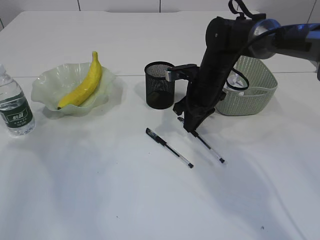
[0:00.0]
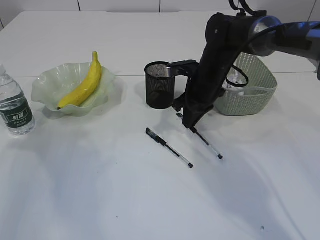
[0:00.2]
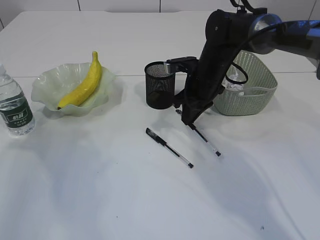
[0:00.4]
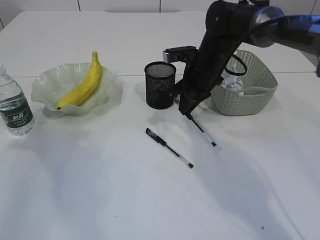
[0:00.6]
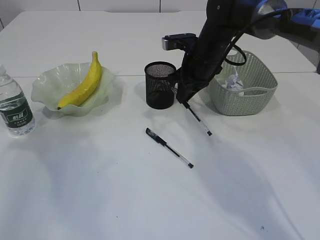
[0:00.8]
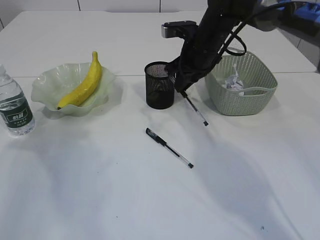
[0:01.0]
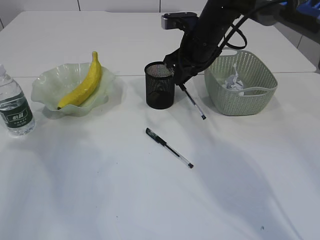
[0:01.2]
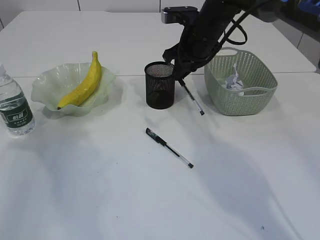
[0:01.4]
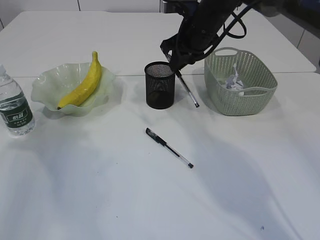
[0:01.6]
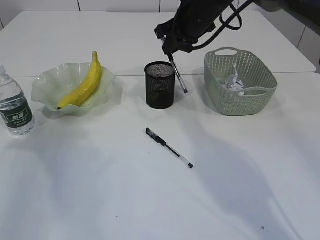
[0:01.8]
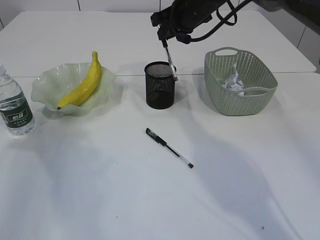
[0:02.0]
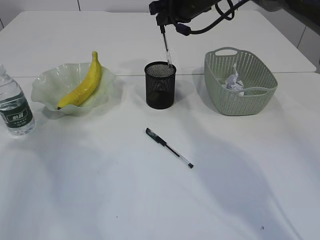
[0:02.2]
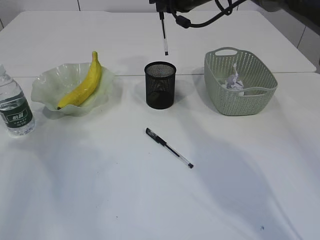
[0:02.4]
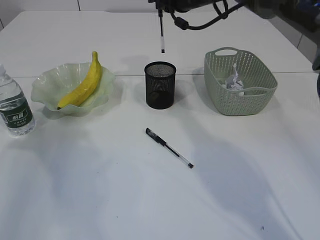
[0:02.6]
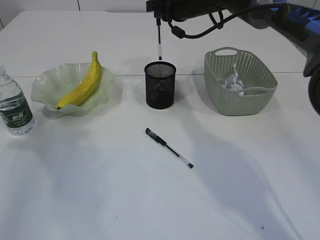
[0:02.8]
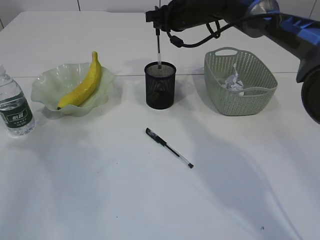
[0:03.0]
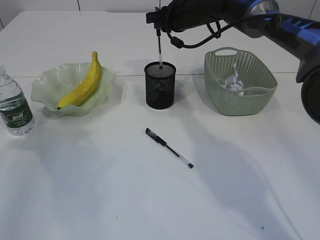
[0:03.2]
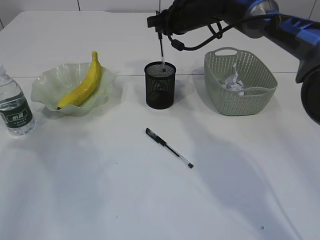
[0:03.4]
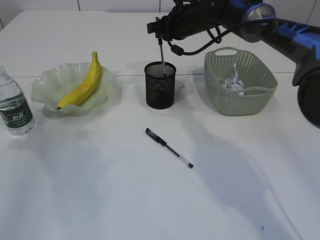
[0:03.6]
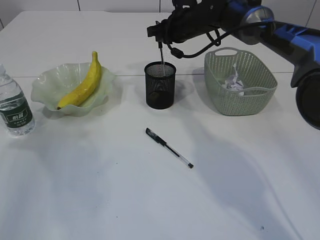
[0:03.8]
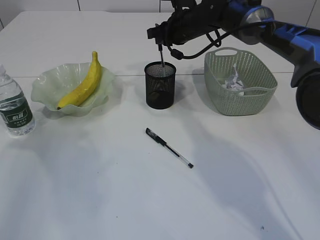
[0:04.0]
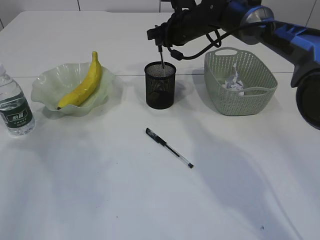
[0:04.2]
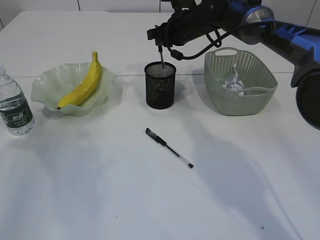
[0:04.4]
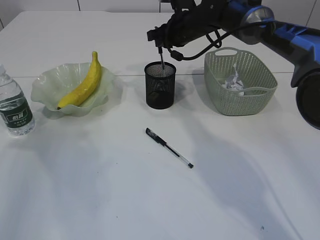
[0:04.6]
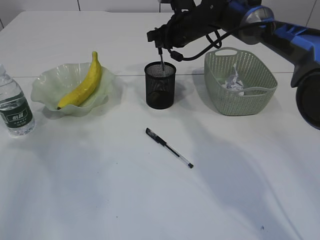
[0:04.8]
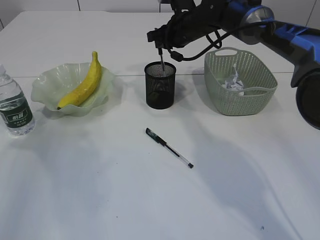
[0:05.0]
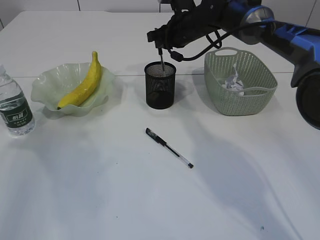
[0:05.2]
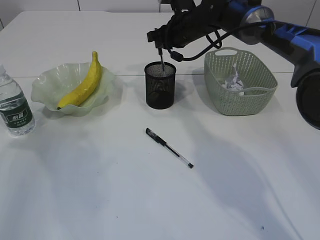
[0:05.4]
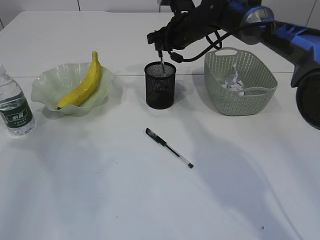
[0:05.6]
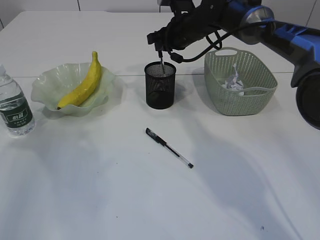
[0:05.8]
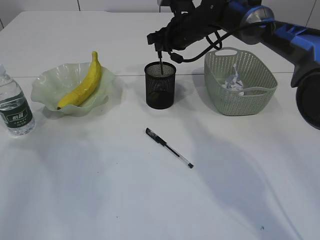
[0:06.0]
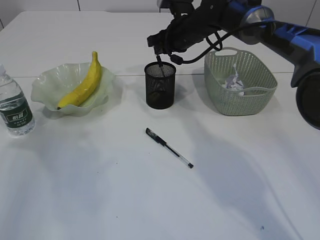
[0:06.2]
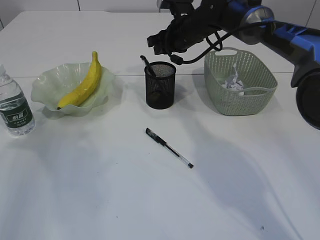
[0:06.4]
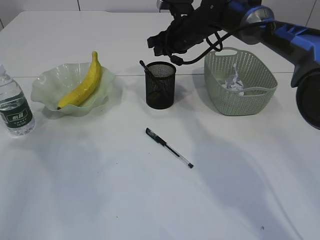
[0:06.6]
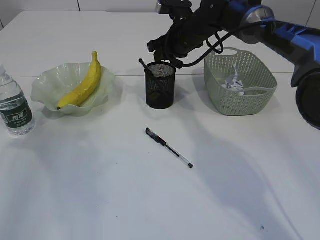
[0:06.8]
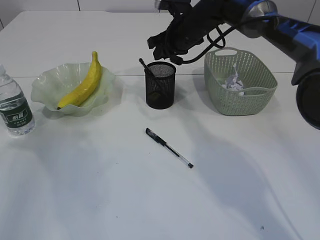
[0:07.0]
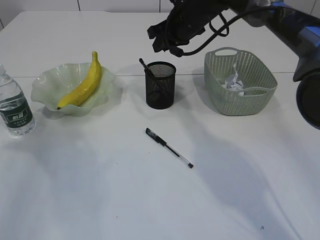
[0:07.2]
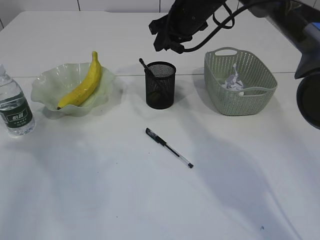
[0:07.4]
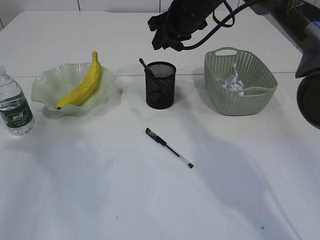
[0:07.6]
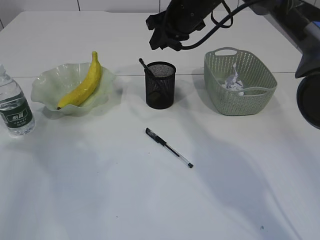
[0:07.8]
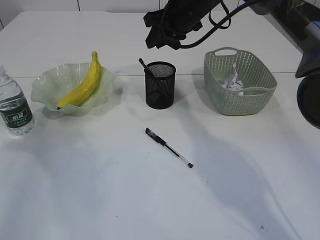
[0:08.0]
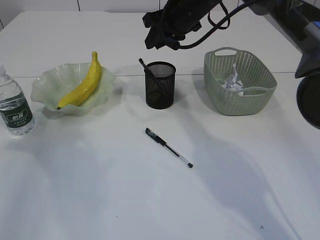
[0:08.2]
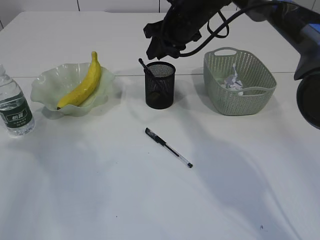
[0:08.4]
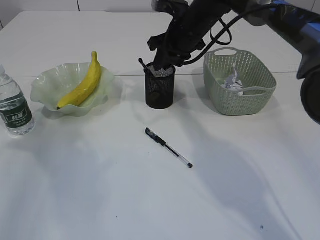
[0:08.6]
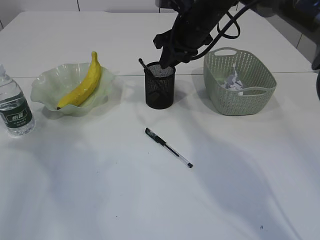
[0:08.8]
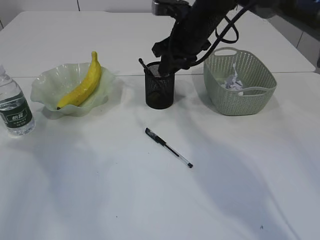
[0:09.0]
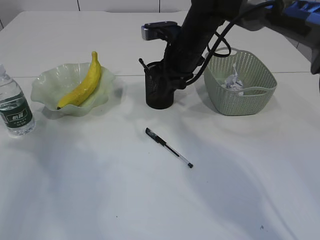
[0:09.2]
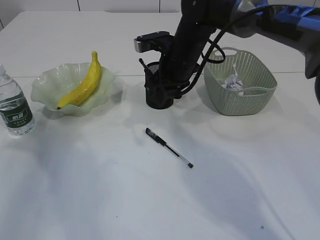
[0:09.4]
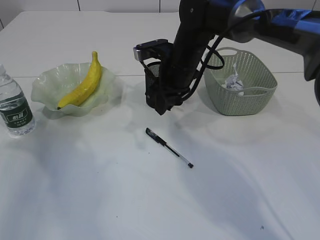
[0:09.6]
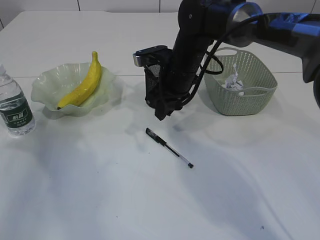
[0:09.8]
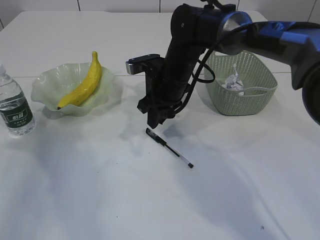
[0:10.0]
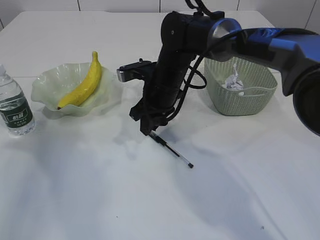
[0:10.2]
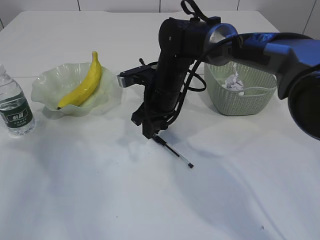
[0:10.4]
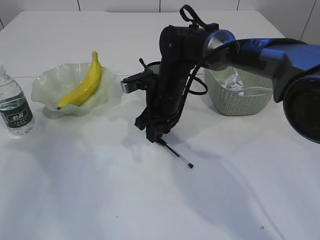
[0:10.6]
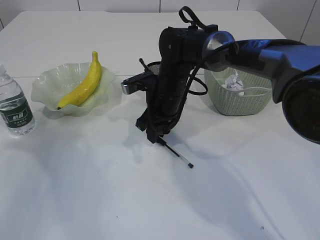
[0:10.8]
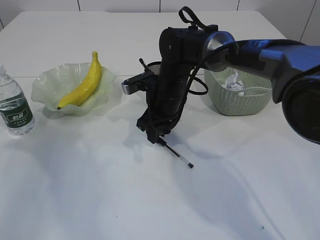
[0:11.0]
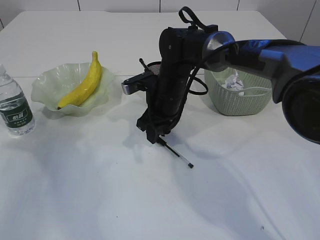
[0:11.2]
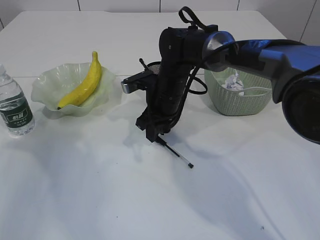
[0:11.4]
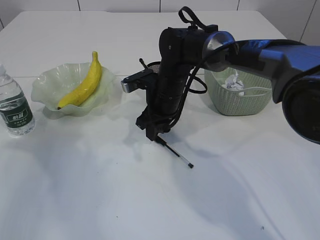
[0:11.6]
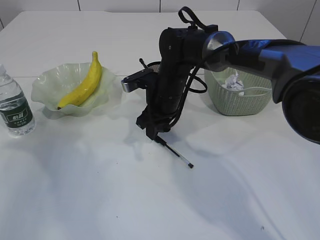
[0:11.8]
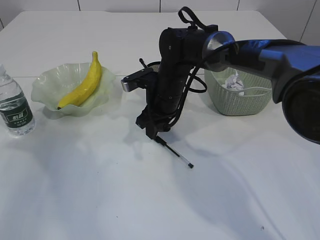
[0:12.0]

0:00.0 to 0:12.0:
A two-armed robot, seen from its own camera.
Step, 0:00.4 to 0:06.6: Place the pen into the pen holder.
0:00.0 to 0:01.6: The right gripper is displaced upward by approximately 10 cm.
0:01.6 to 0:03.0: The right gripper goes roughly 5 cm forward.
0:03.0 to 0:04.4: The grippers stay close to where they were, moving slightly.
0:04.4 to 0:06.0: The two grippers keep their place.
0:06.0 to 0:07.6: The right gripper travels upward by roughly 5 cm.
0:07.6 to 0:09.0: The grippers stay close to where they were, moving slightly.
0:09.0 to 0:10.4: The right gripper heads downward and to the left, covering some 10 cm.
0:10.4 to 0:12.0: The grippers make only small movements.

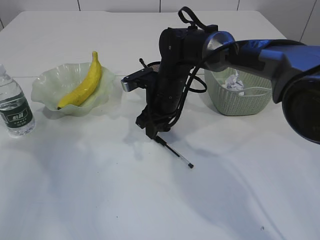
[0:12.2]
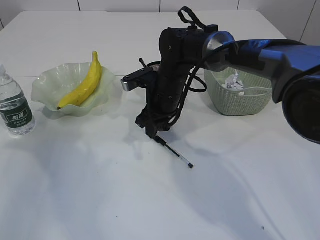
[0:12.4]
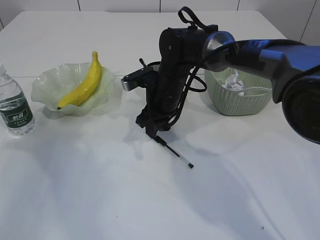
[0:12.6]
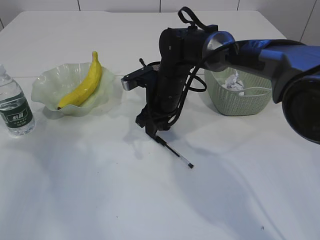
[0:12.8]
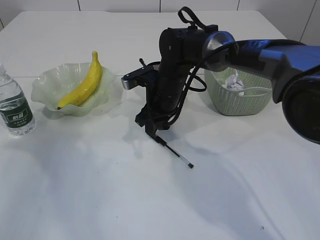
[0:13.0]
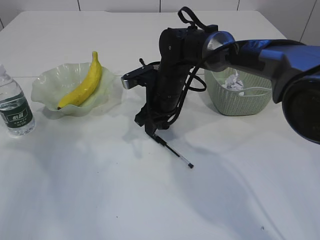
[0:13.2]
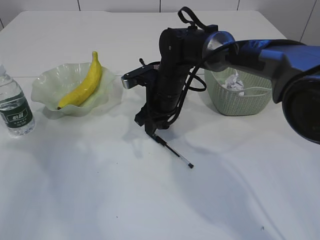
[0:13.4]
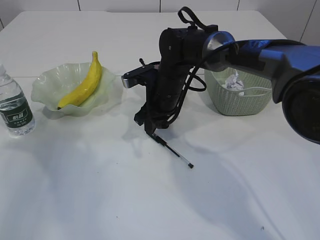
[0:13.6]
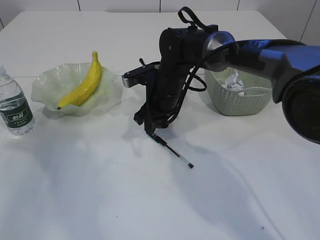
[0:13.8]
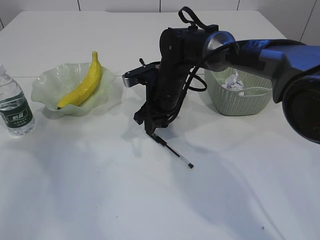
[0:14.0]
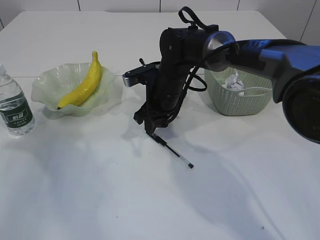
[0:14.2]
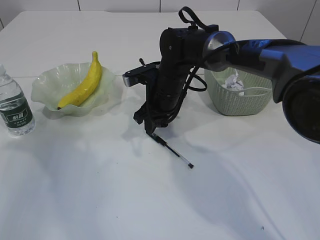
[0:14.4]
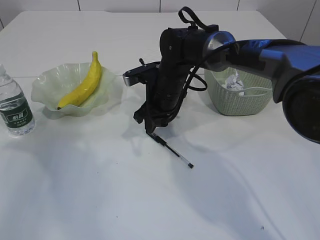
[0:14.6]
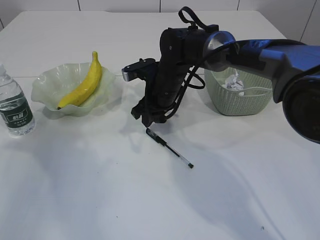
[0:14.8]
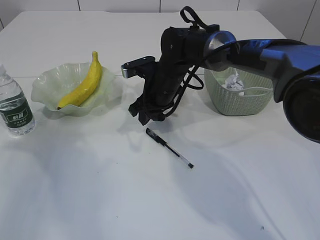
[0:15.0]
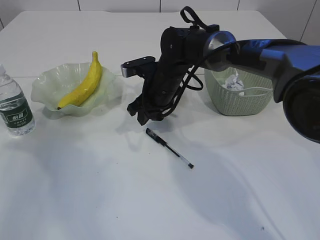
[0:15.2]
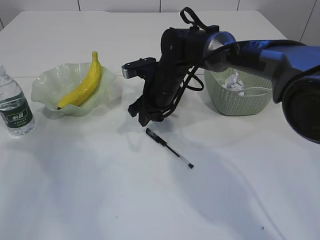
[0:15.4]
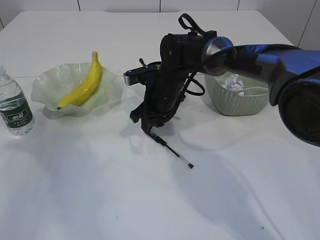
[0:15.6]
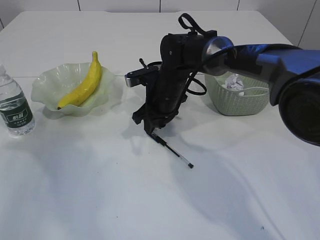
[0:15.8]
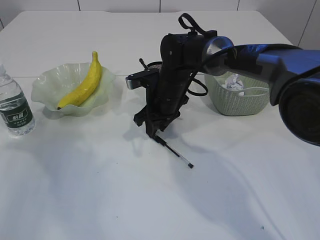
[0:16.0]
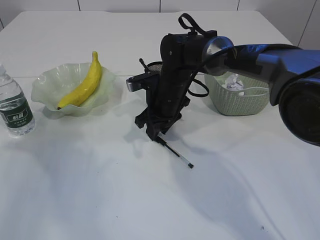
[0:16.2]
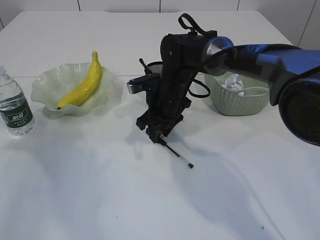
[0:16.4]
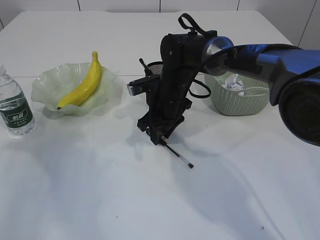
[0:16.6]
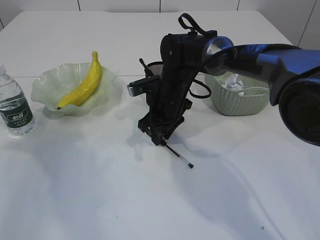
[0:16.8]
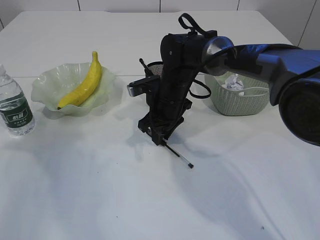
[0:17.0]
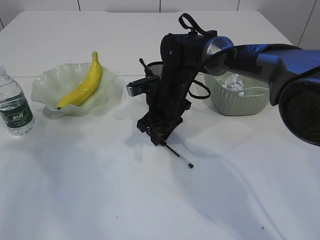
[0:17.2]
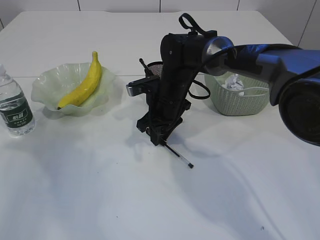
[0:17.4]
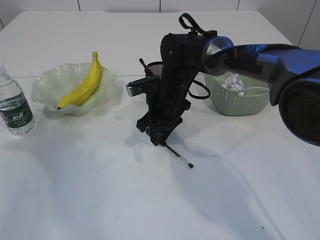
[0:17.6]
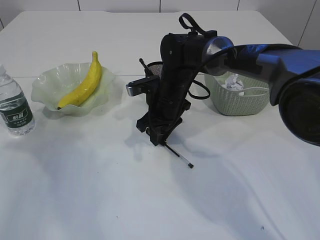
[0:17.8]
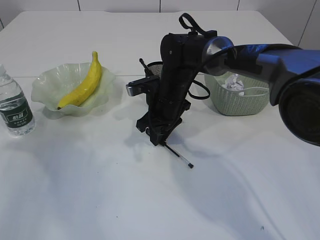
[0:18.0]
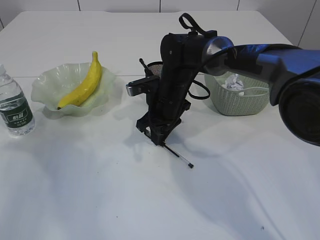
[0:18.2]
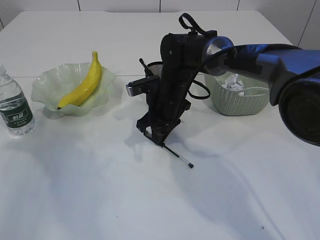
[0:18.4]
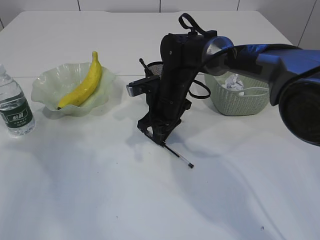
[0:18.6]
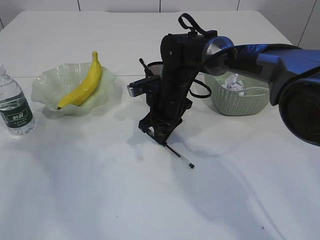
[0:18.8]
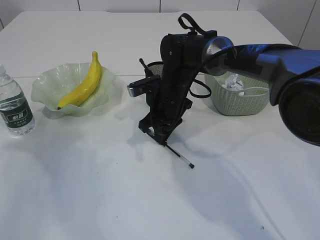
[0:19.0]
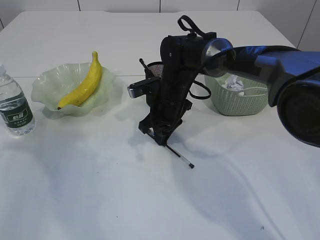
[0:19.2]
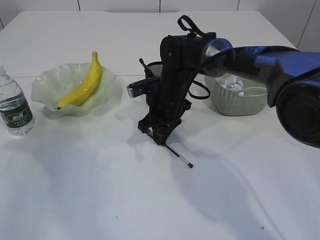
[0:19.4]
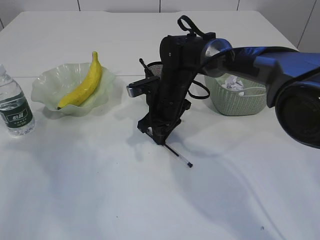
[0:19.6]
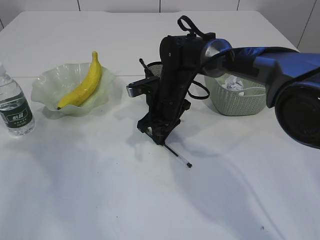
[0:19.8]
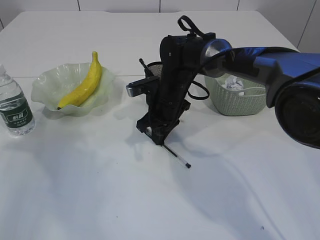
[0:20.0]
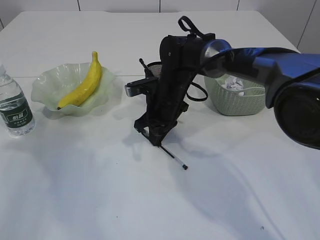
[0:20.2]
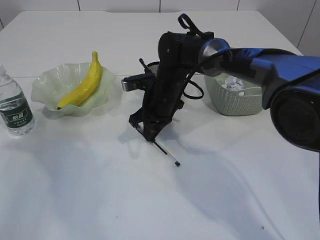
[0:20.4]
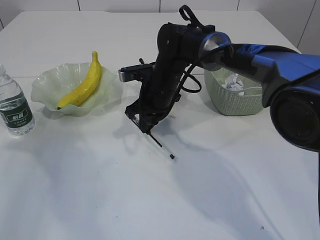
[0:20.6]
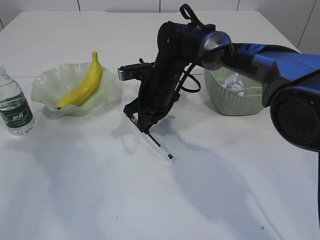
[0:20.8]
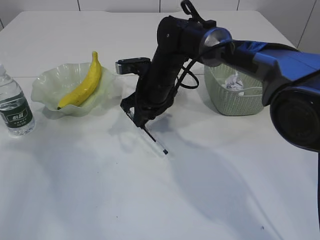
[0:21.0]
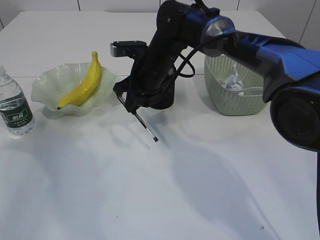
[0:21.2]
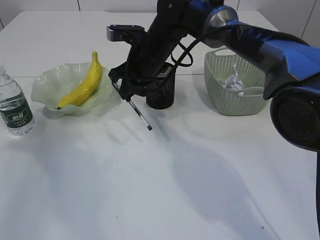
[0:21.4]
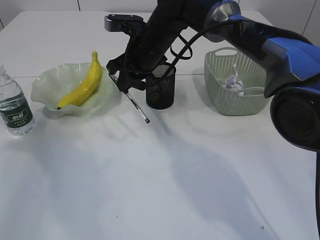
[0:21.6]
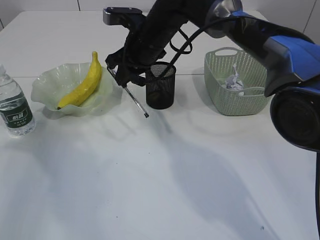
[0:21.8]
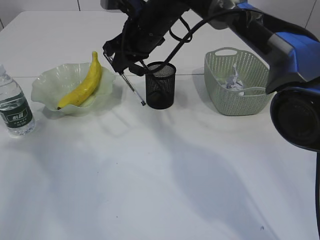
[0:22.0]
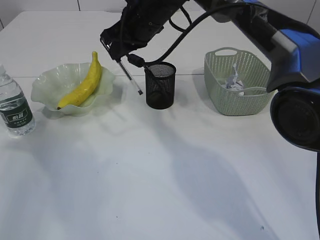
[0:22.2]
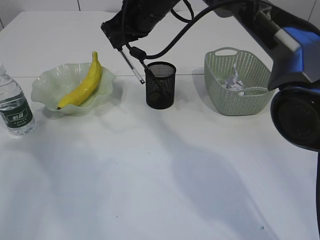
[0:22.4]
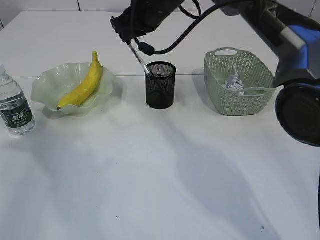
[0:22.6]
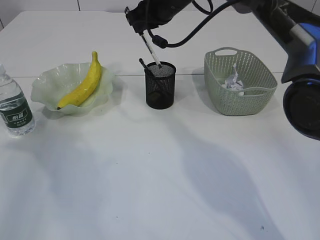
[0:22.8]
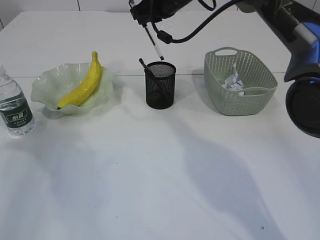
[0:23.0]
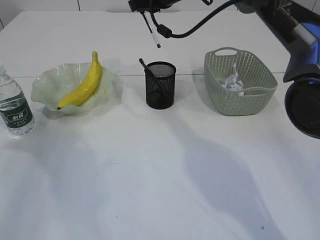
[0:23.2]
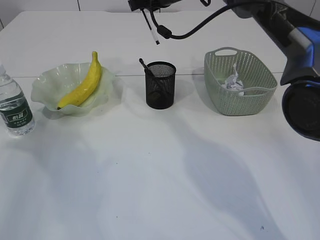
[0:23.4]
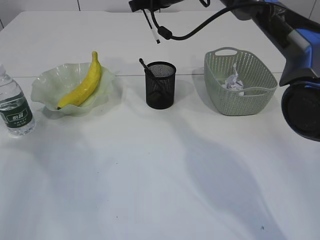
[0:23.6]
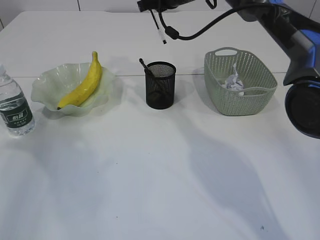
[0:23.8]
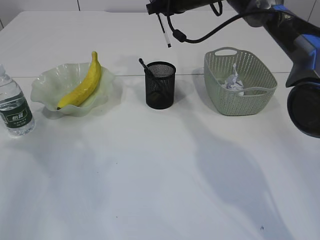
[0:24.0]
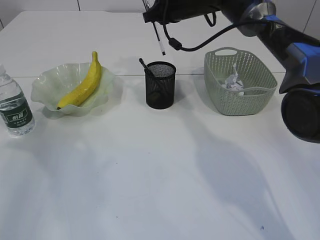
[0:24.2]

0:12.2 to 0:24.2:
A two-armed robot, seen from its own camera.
Step, 0:12.2 to 0:21.2: Pick up the pen with right arm.
0:12.2 to 0:13.8: Both grippers stay about where they are.
0:13.8 to 0:16.6: There are only small adjustments of the grippers.
0:16.6 to 0:19.8: The two grippers keep their place.
0:19.8 to 0:21.2: The right gripper heads upward, covering roughly 5 cm.
0:21.2 to 0:22.6: The right gripper heads upward, covering about 10 cm.
0:22.6 to 0:24.2: The right gripper is displaced forward and to the right by approximately 10 cm.
